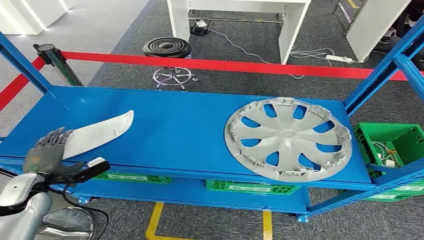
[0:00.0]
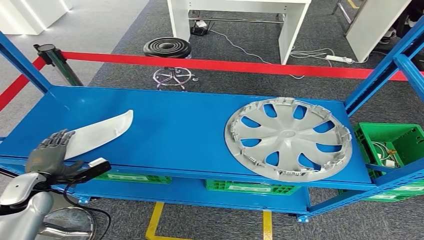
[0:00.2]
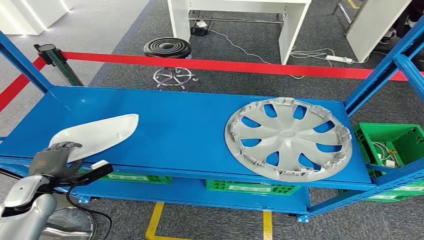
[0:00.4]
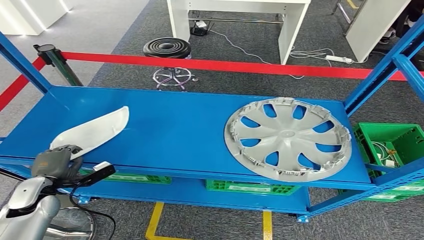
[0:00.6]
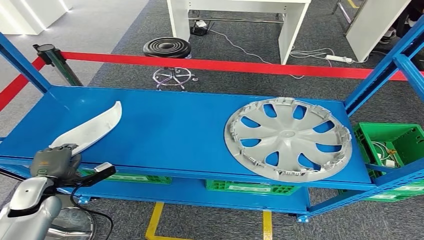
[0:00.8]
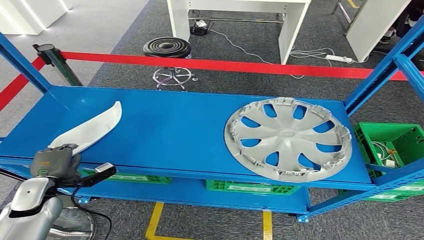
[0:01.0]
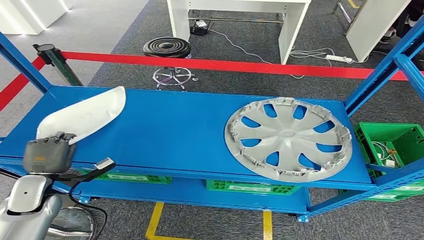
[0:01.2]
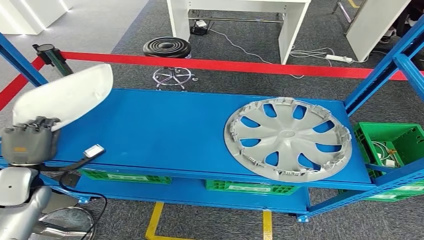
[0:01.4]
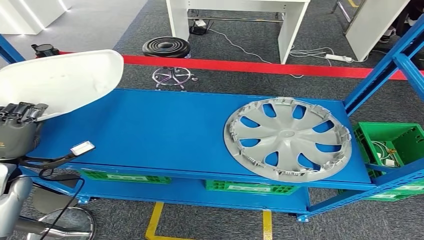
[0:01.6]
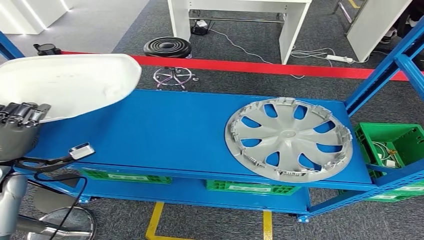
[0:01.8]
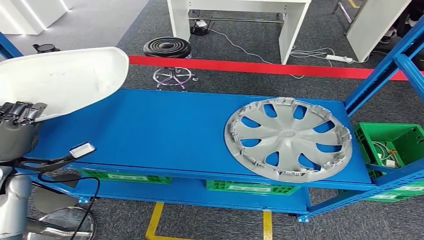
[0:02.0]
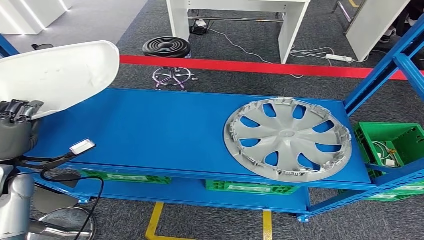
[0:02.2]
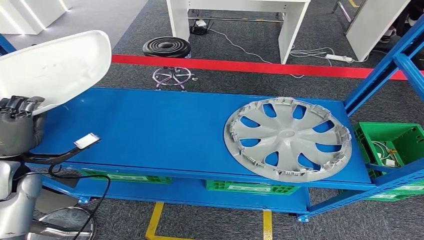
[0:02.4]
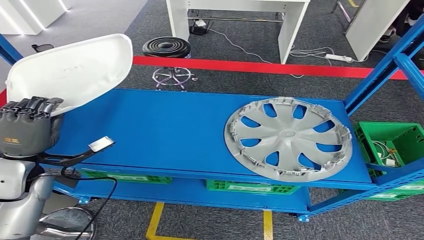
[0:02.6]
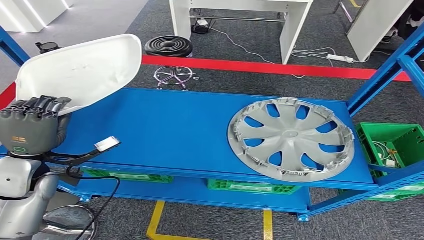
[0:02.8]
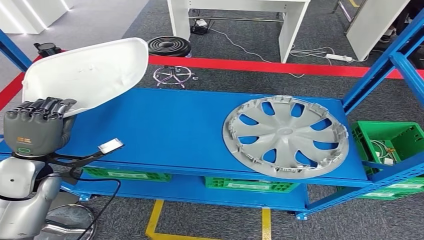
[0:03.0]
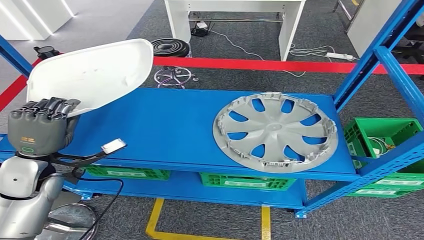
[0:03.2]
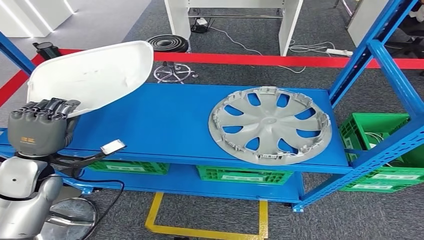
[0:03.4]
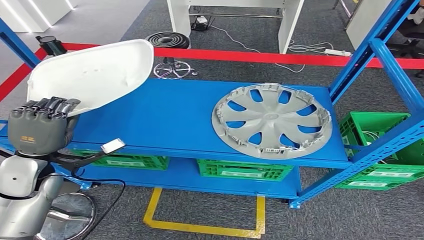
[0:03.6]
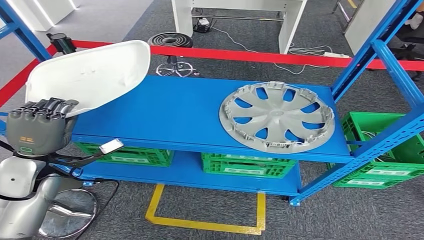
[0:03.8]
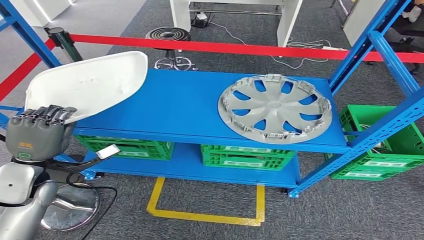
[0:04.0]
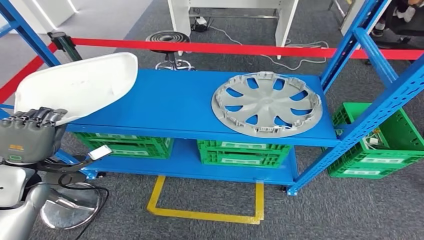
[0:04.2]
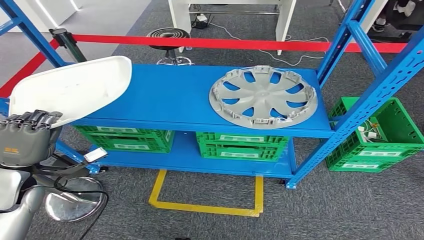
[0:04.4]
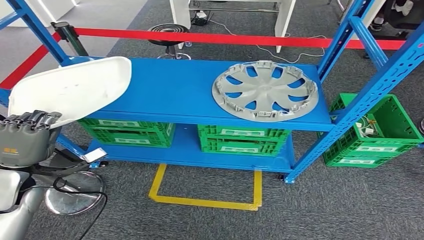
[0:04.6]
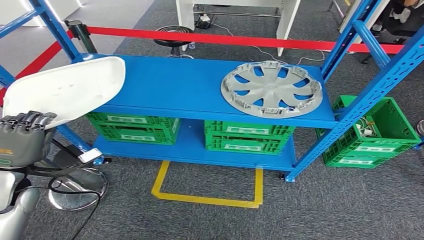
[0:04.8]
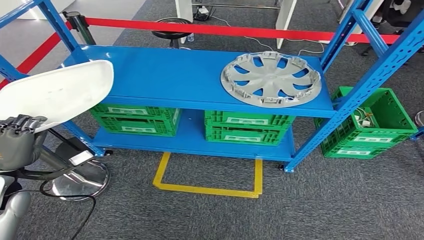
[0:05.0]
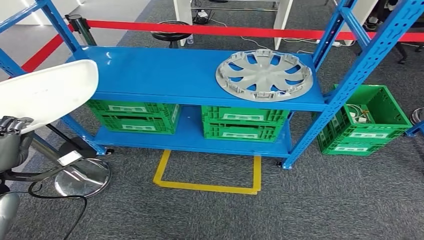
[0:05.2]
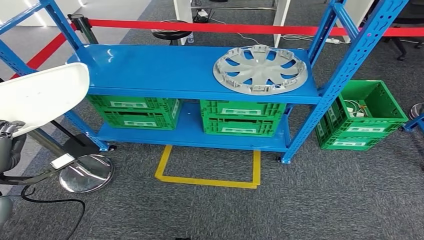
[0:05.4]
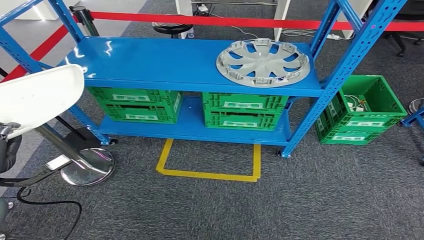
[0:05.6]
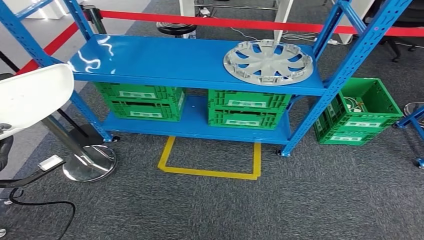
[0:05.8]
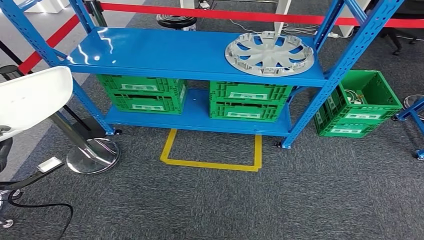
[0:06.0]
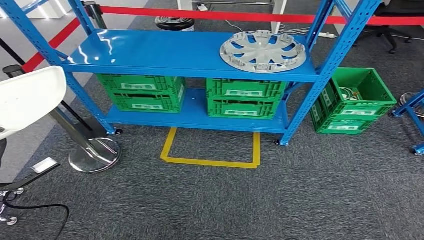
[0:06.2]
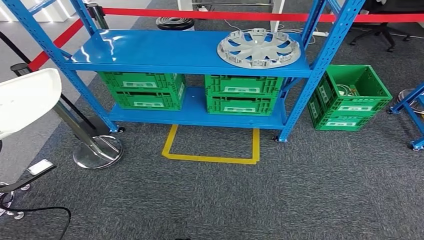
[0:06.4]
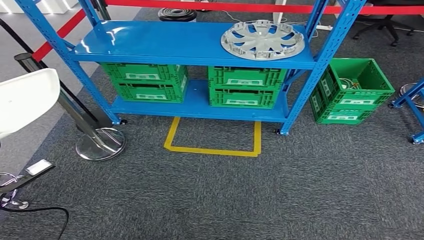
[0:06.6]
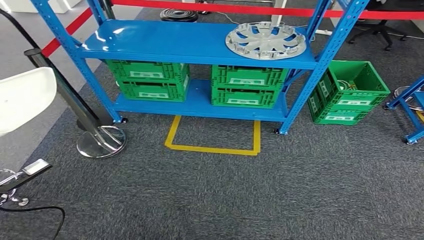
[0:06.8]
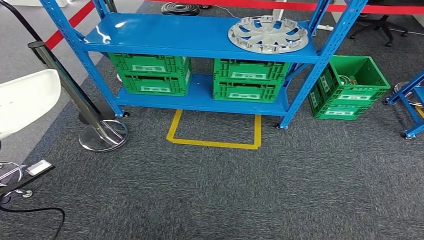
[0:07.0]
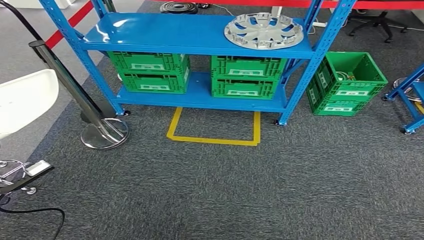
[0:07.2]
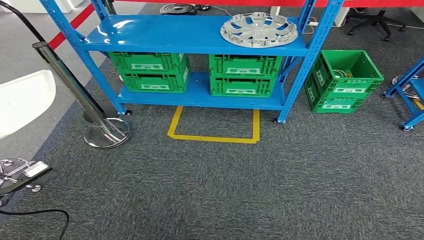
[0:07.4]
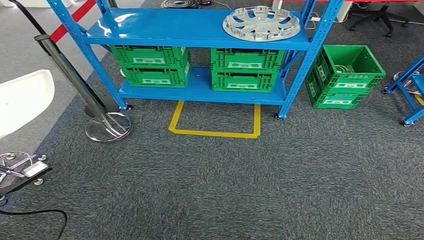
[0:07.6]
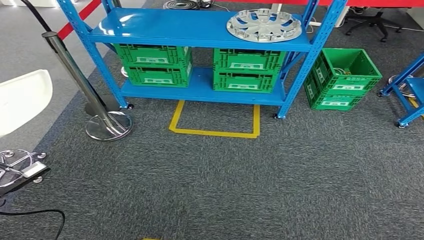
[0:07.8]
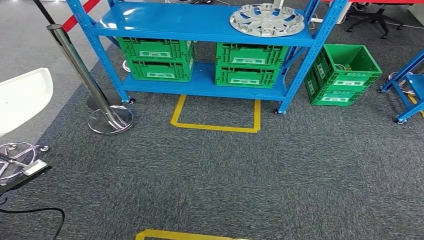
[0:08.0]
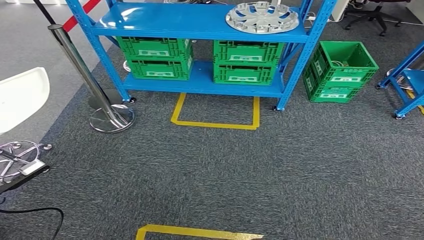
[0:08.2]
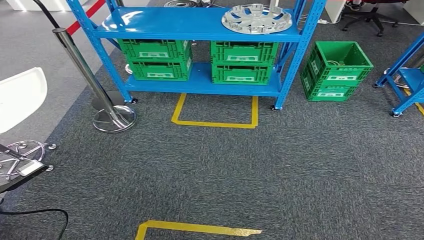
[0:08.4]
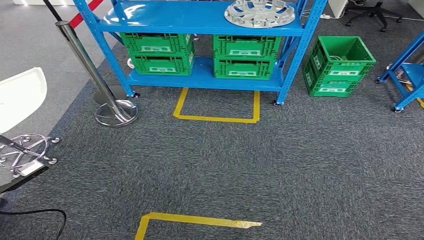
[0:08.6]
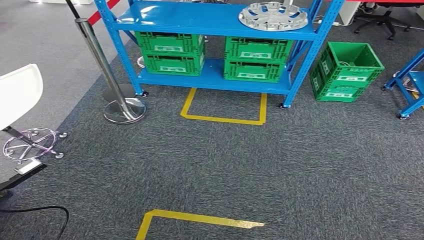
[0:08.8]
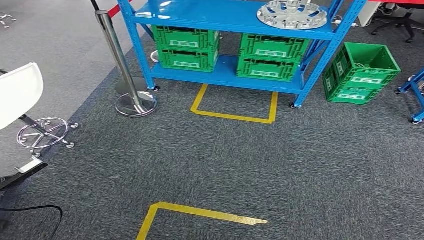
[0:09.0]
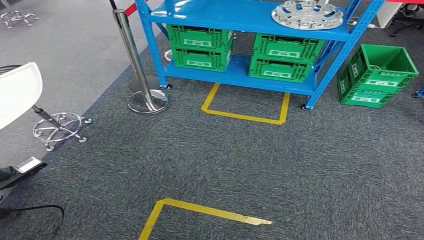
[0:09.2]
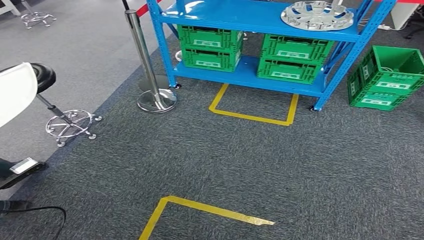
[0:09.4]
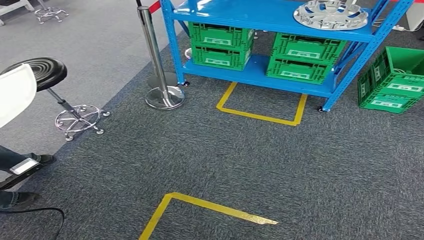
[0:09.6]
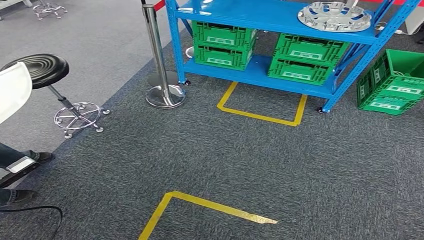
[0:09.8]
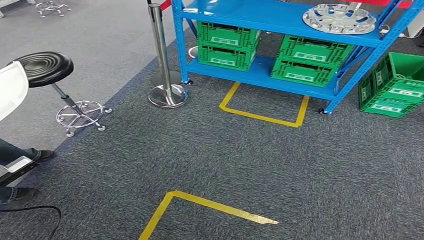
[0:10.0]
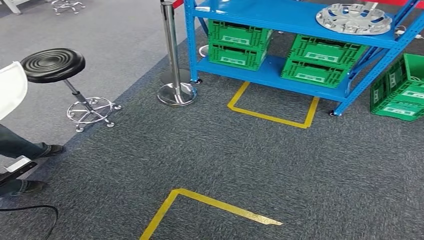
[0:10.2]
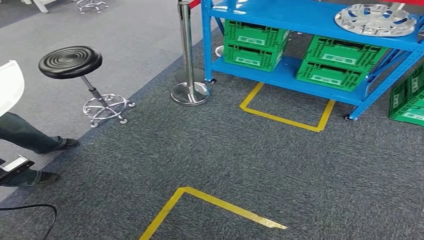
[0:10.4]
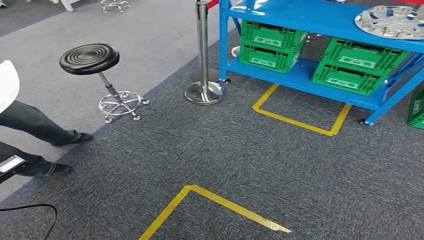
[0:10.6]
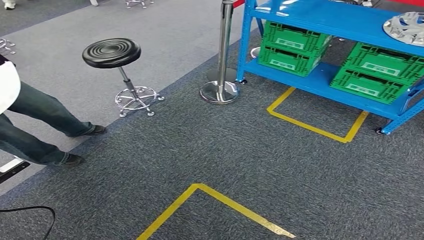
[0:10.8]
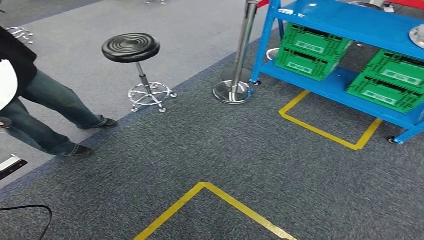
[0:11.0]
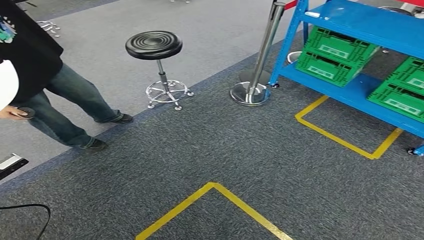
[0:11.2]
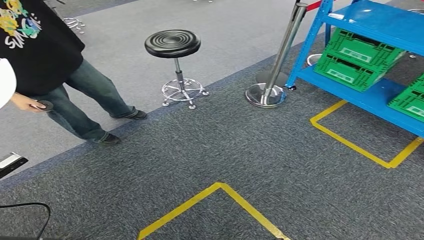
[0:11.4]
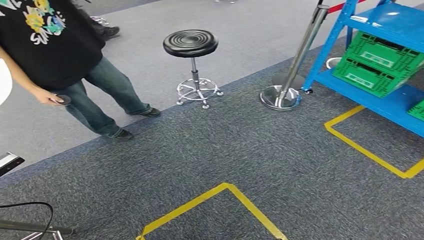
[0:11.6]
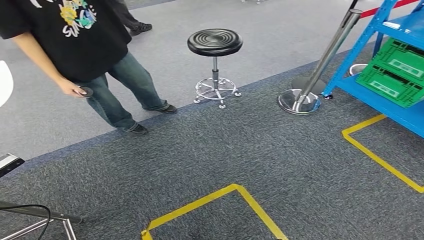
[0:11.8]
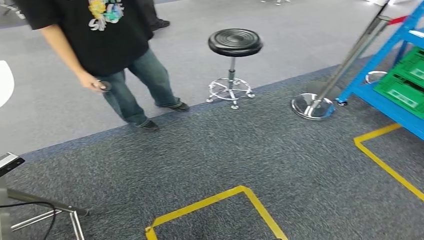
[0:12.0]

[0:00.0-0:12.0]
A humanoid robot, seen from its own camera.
Step, 0:00.0 to 0:04.4: Pick up the small component from the shelf.

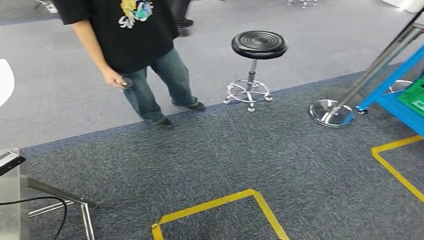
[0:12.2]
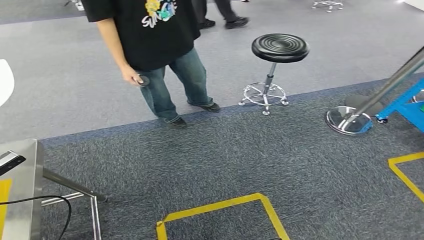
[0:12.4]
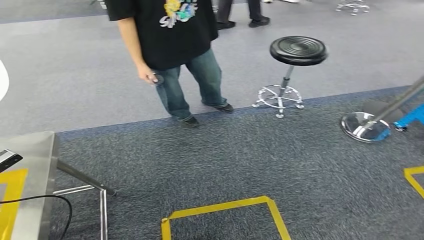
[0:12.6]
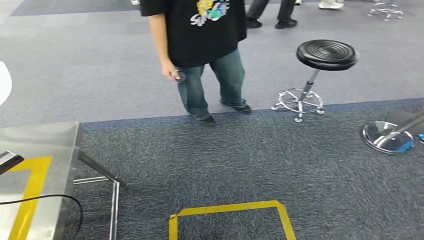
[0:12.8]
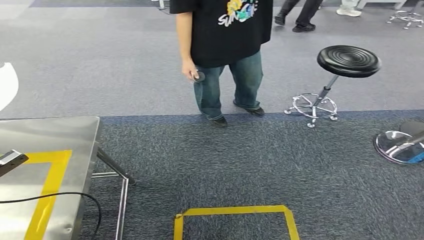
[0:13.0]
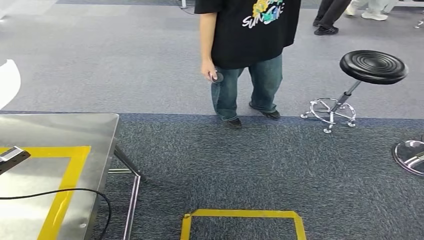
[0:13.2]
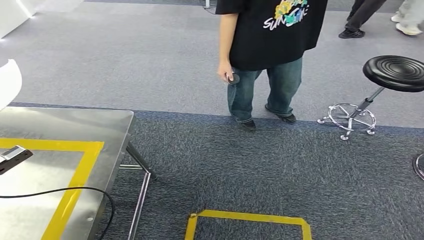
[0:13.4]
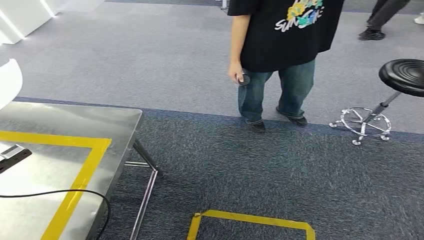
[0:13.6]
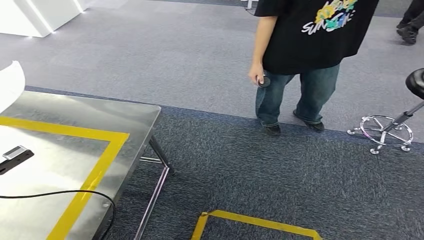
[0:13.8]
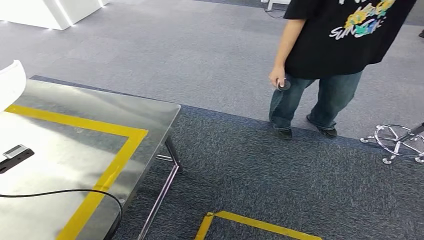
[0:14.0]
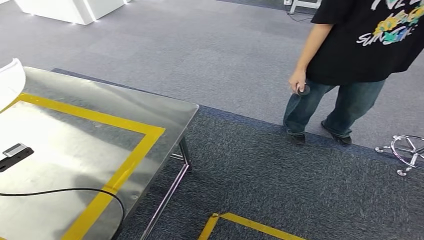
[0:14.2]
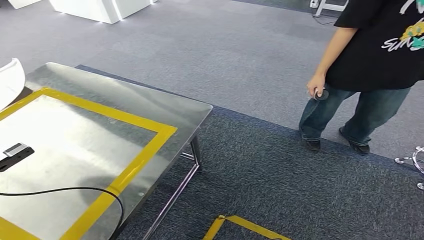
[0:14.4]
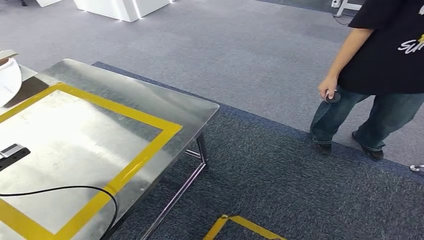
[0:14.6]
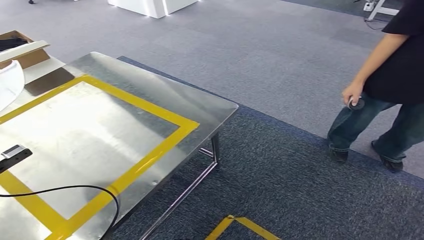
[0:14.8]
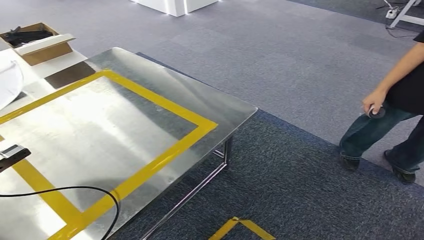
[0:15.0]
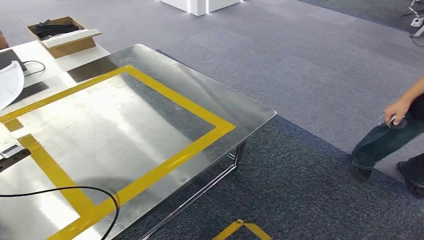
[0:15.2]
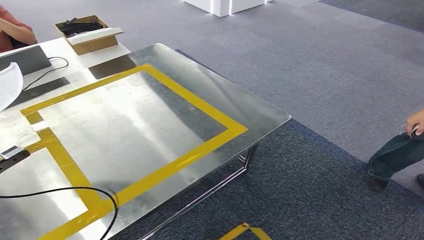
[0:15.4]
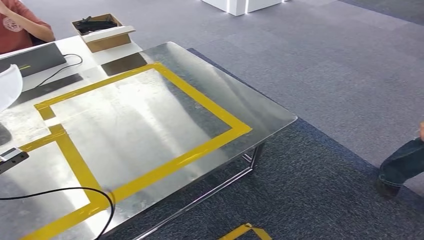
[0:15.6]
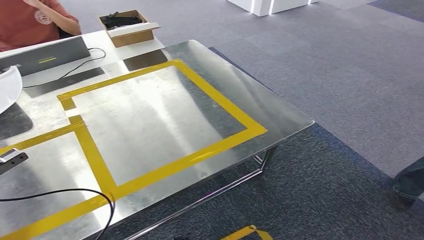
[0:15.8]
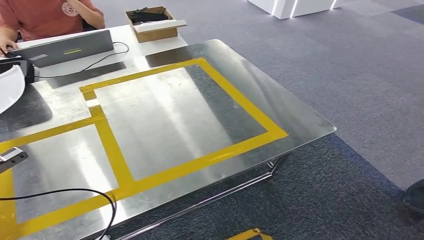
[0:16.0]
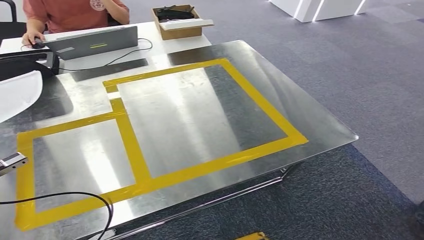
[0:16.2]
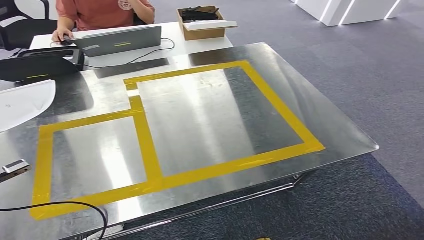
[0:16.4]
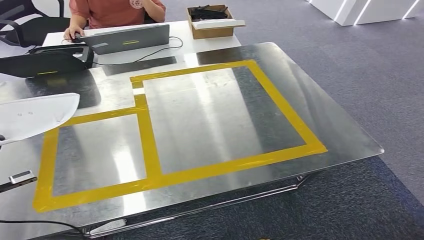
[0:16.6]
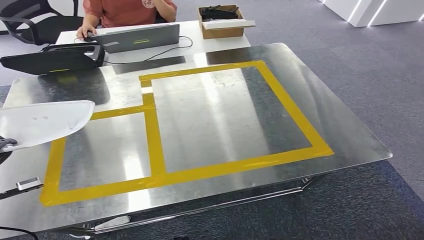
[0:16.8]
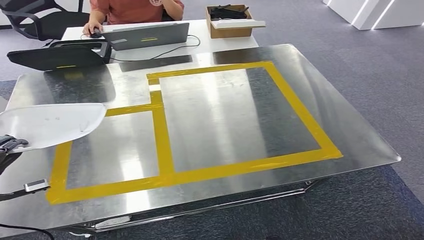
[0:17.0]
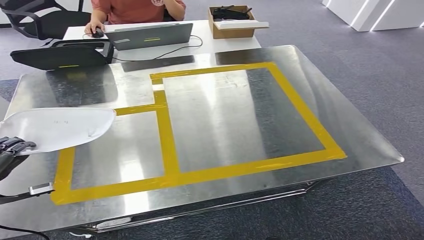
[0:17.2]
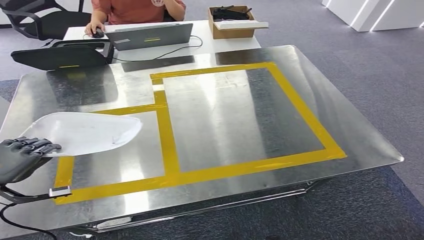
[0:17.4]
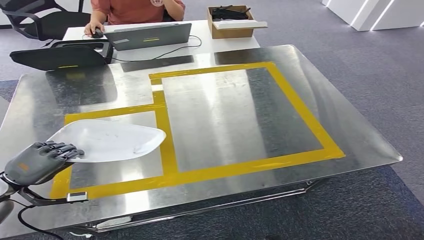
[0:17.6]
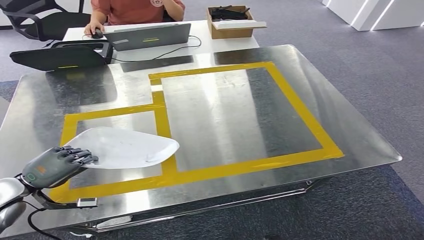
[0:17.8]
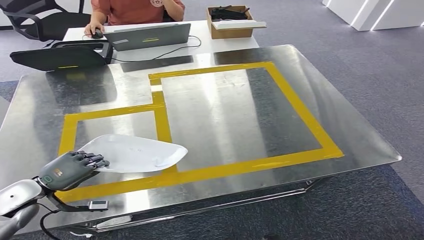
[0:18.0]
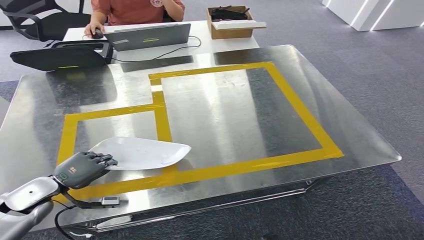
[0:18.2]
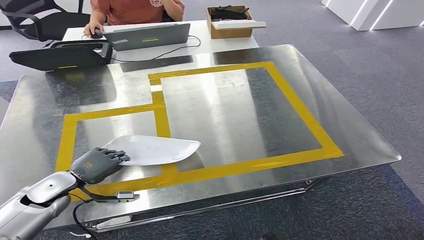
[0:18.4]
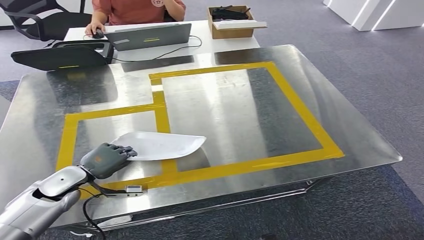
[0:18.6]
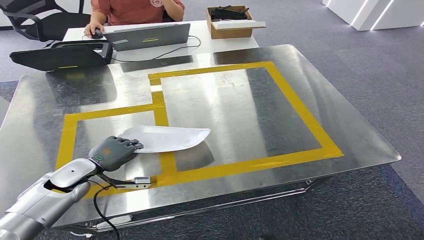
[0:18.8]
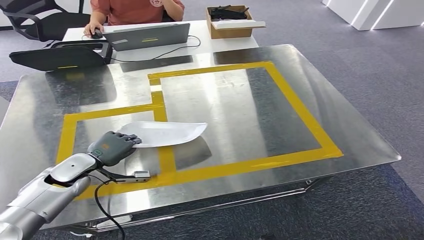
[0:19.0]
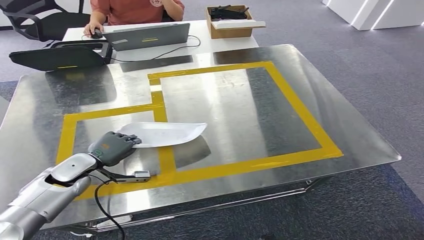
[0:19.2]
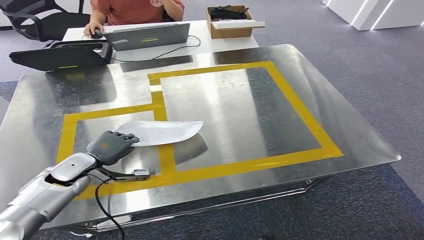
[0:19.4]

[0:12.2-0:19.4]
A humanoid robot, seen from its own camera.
Step, 0:12.2 to 0:15.8: Move the small component to the workbench.
0:18.0 to 0:19.4: The left hand goes approximately 10 cm forward and to the right.
